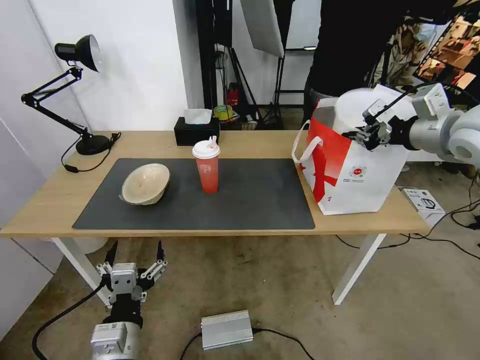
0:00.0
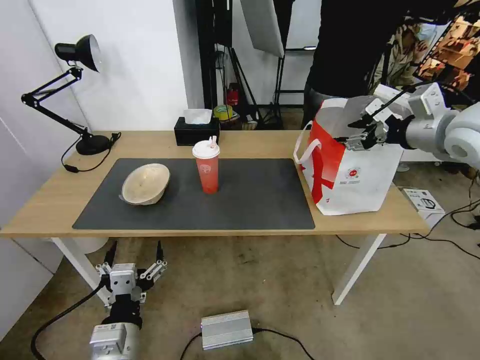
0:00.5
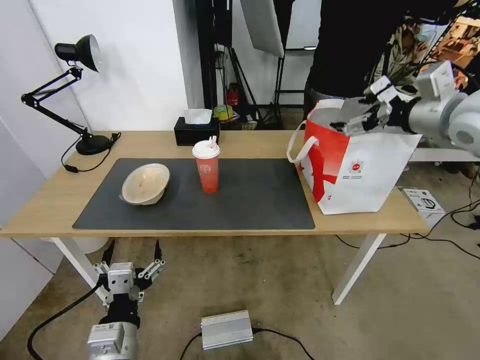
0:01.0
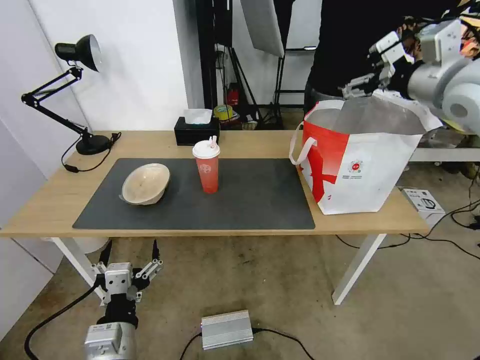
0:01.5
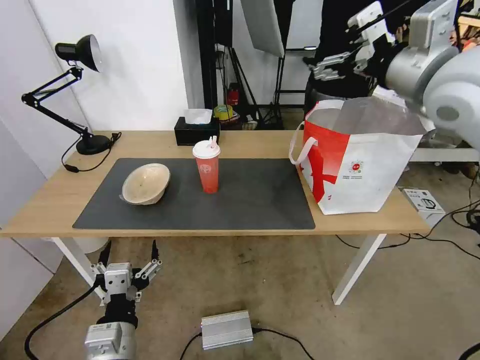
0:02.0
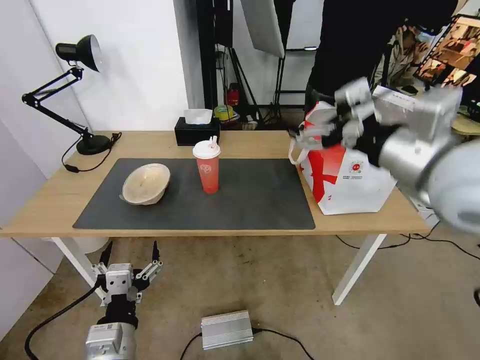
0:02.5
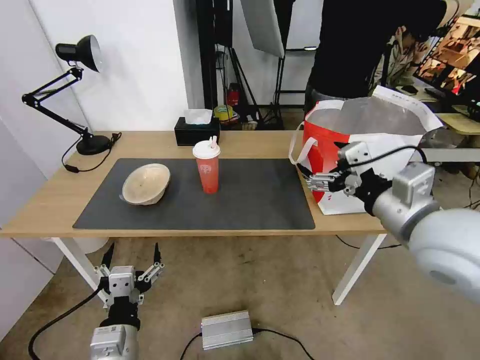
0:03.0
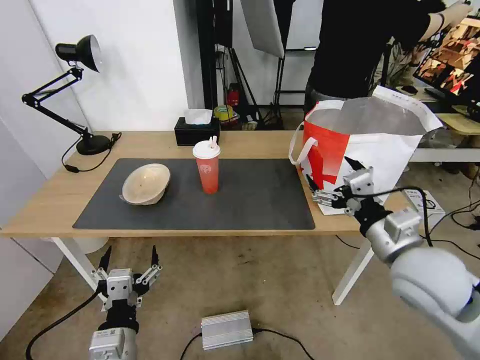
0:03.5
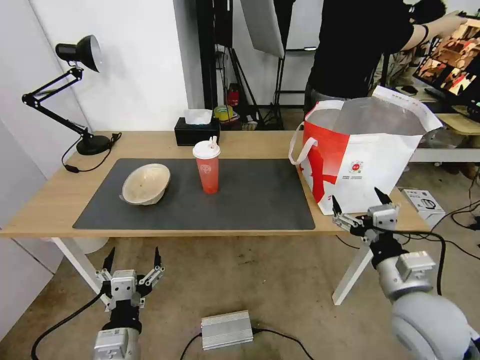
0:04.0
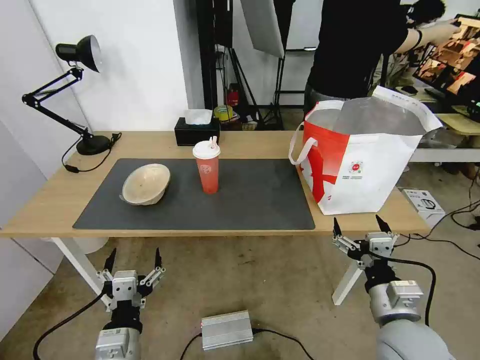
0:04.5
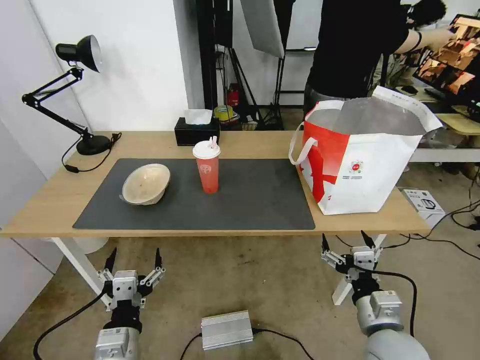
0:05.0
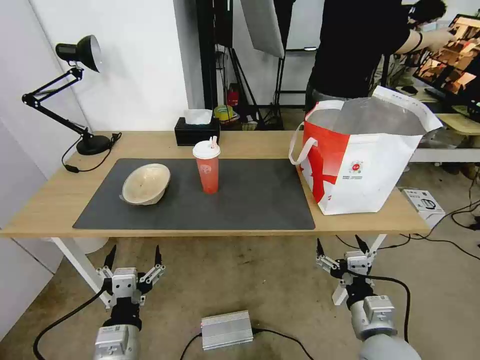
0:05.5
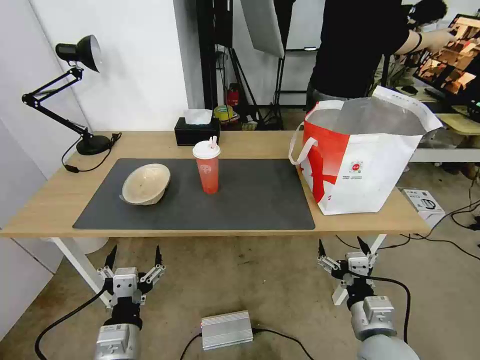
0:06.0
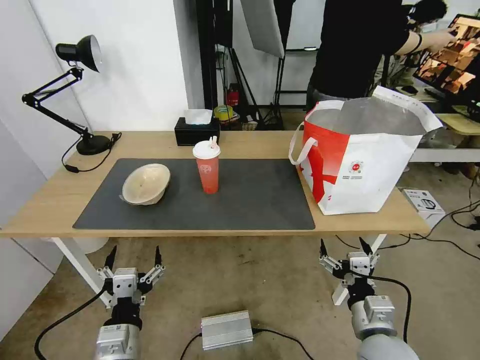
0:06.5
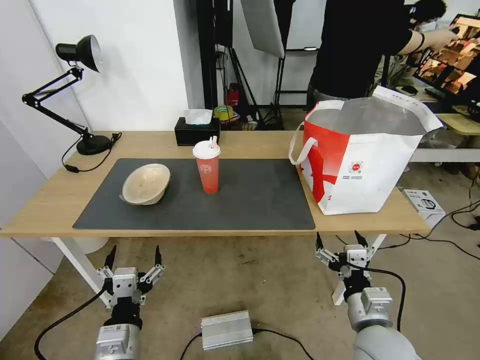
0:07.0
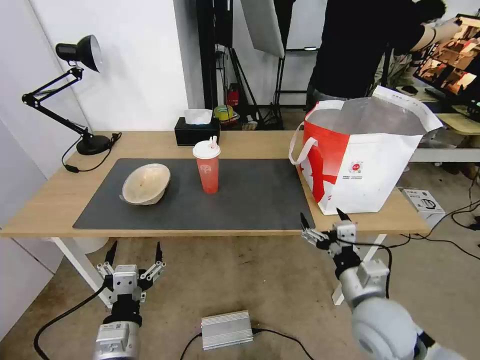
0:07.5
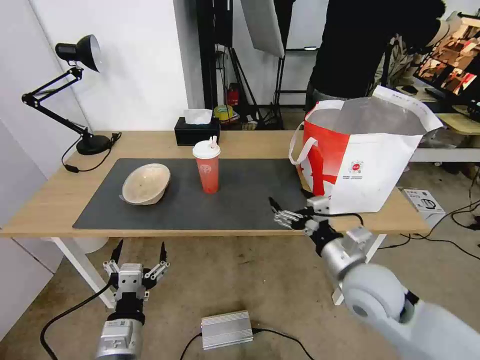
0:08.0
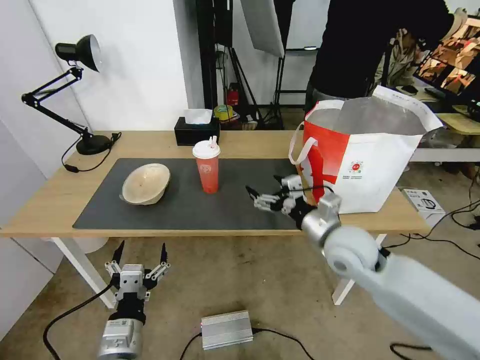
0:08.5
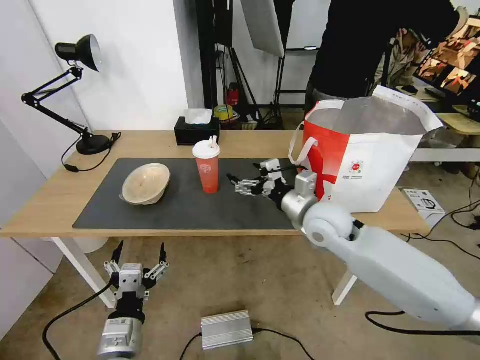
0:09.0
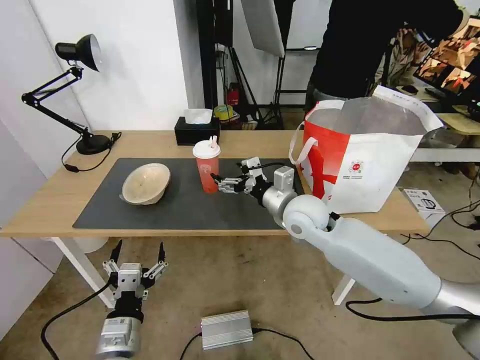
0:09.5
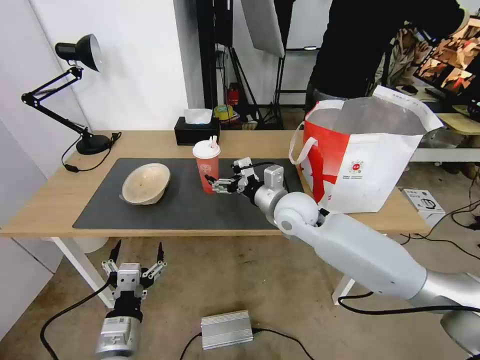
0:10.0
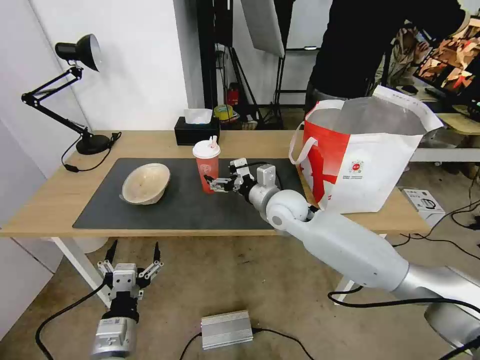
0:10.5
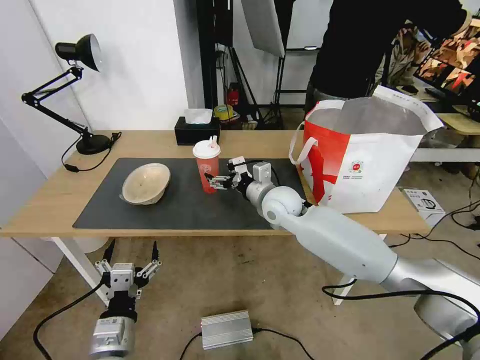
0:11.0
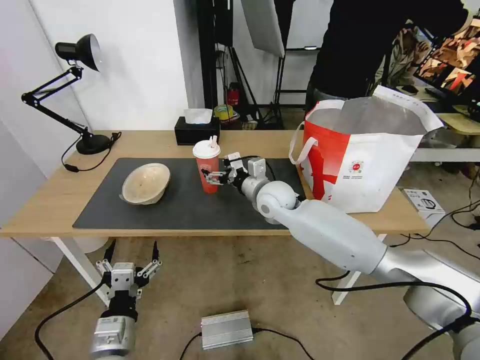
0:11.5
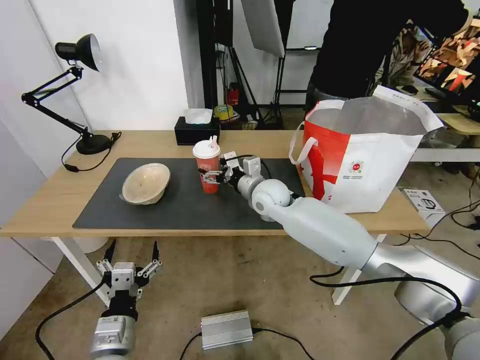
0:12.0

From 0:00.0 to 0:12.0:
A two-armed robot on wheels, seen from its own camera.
Task of the whole recording: Pick up the trash from the table and place it into the takeout bag.
From 0:00.0 to 0:02.0: The right gripper shifts roughly 10 cm to the left and upward, and opens up.
From 0:02.0 to 0:04.0: The right gripper travels downward and backward by approximately 35 cm.
From 0:04.0 to 0:06.0: The right gripper is displaced downward by about 10 cm.
From 0:06.0 to 0:08.0: The right gripper travels forward and upward by roughly 15 cm.
From 0:08.0 to 0:10.0: The right gripper goes approximately 20 cm forward and to the left.
From 0:10.0 to 0:12.0: The right gripper goes about 10 cm forward.

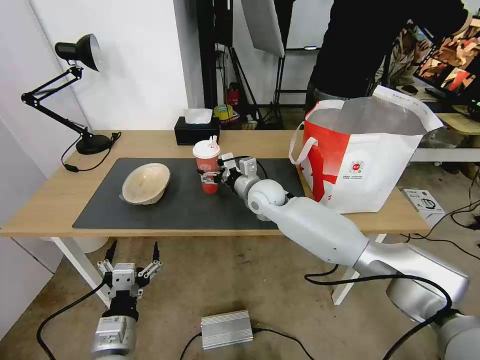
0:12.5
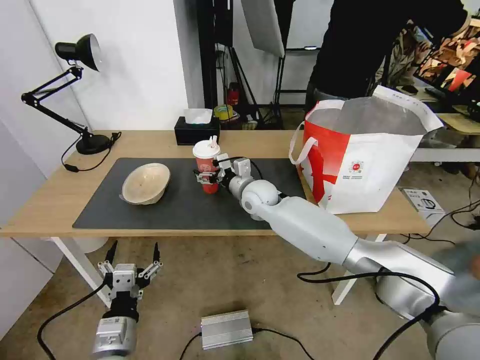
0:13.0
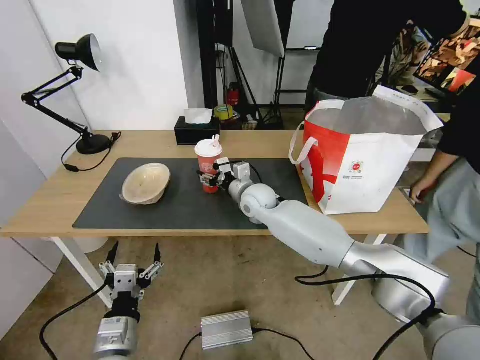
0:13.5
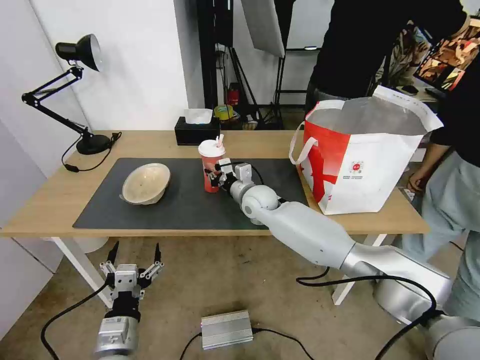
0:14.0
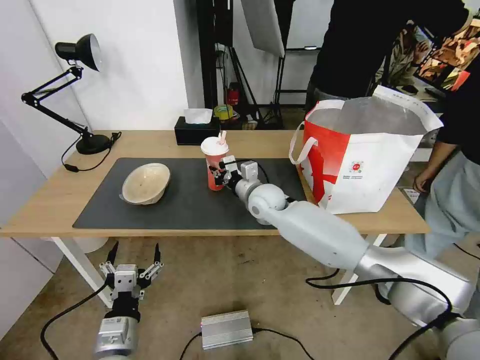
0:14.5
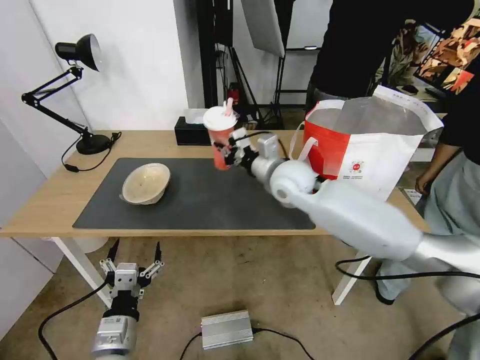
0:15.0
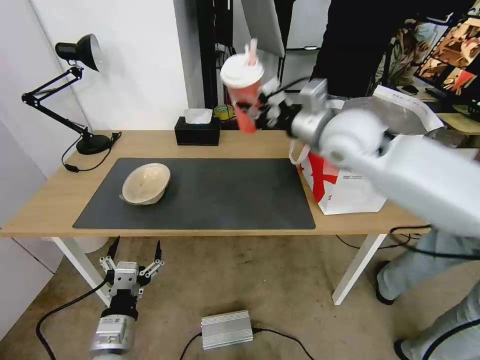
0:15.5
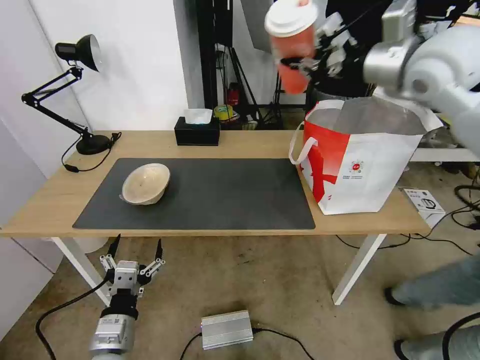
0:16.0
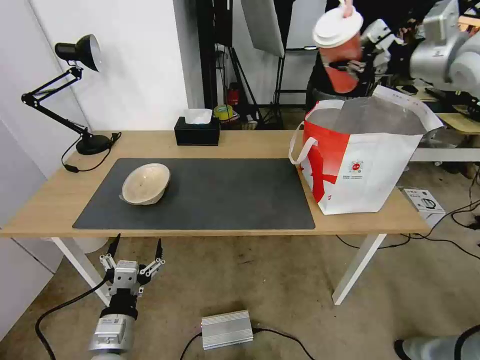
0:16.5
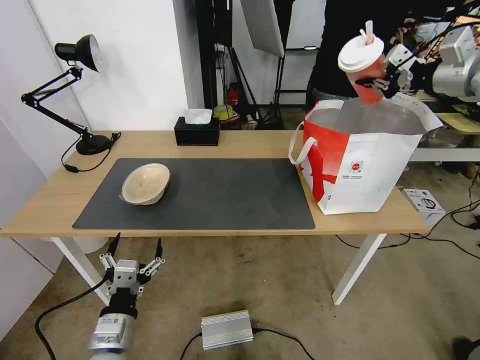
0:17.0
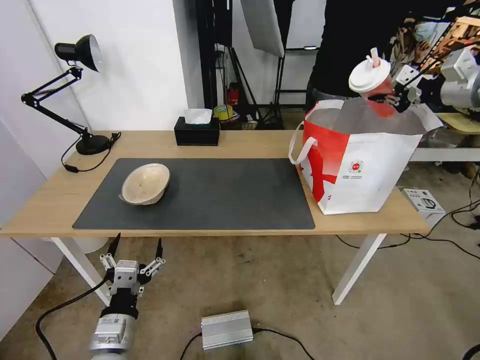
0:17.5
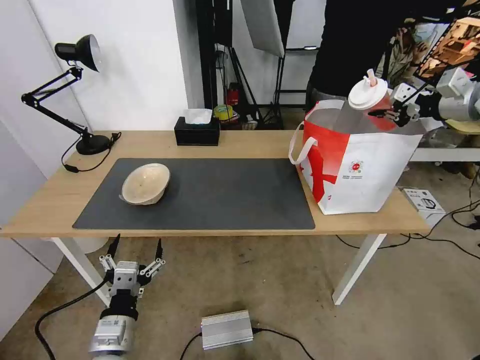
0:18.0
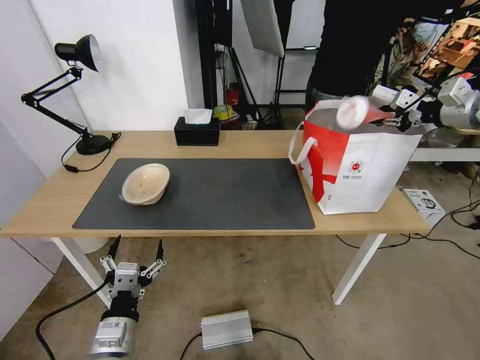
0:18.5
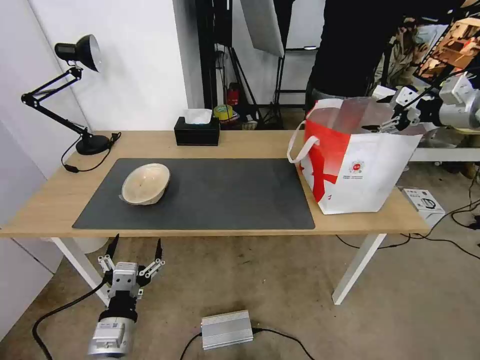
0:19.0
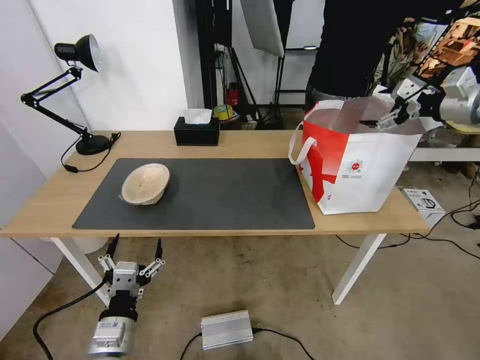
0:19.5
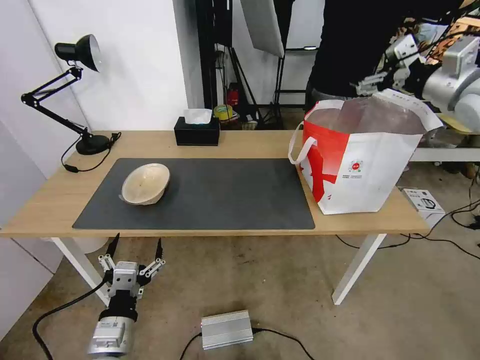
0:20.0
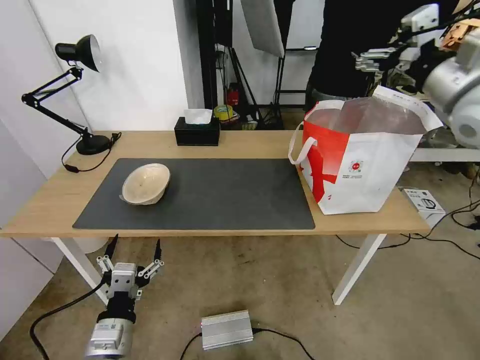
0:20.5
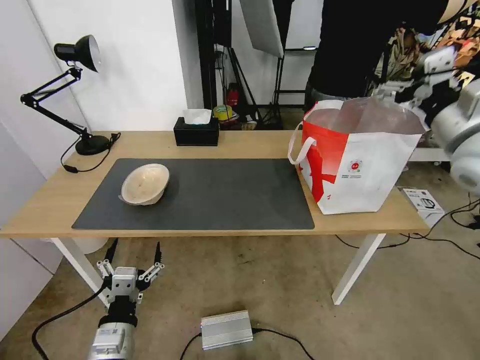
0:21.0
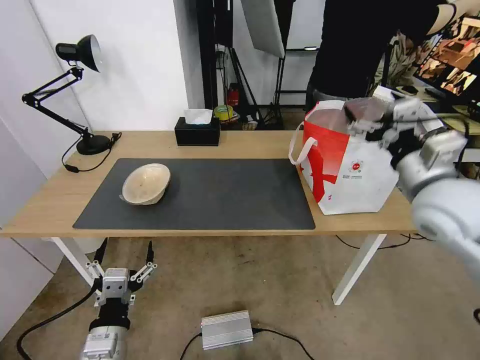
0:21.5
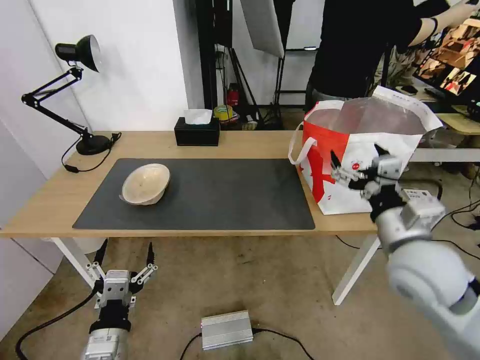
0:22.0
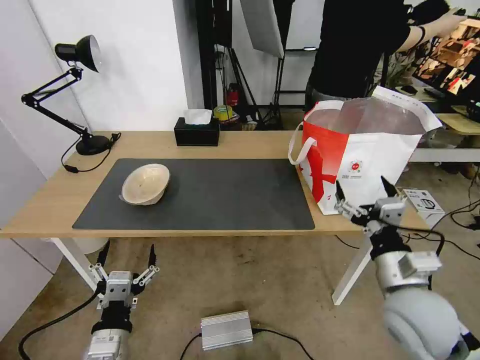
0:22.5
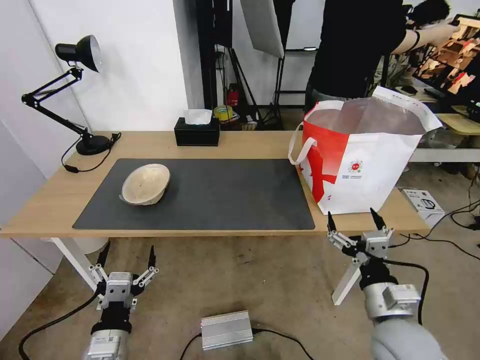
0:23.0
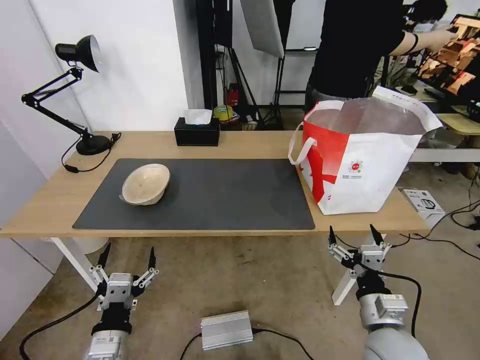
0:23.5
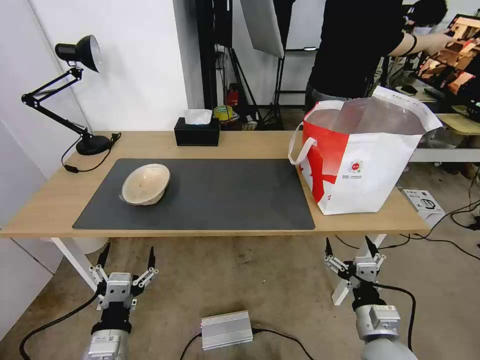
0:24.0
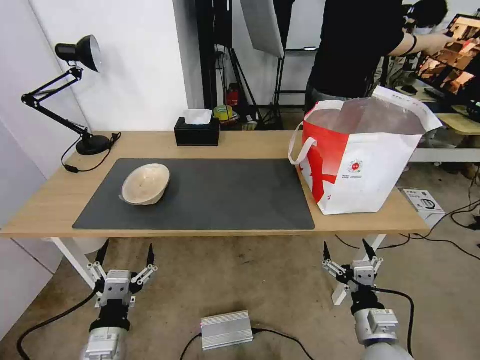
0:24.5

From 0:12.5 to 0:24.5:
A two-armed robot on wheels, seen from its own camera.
Task of the whole recording: Pick up the trash from the table and place it into the takeout bag.
From 0:12.5 to 0:14.5: The right gripper closes up.
From 0:14.5 to 0:16.5: The right gripper heads upward and to the right, covering some 50 cm.
From 0:16.5 to 0:18.5: The right gripper goes about 15 cm to the right and downward.
From 0:18.5 to 0:20.5: The right gripper heads to the left and backward, covering approximately 15 cm, and opens.
From 0:20.5 to 0:22.5: The right gripper heads downward and backward, covering about 35 cm.
From 0:22.5 to 0:24.5: The right gripper goes about 15 cm downward and backward.

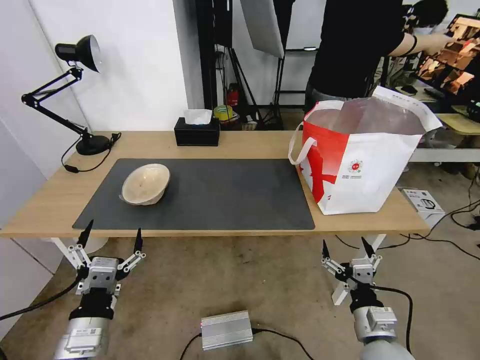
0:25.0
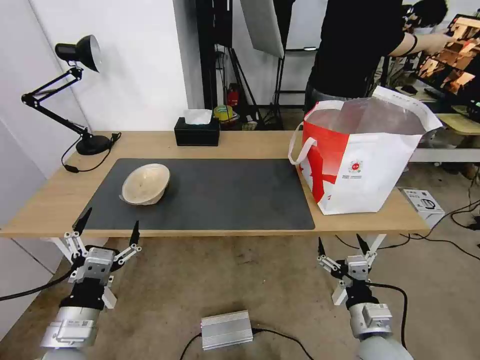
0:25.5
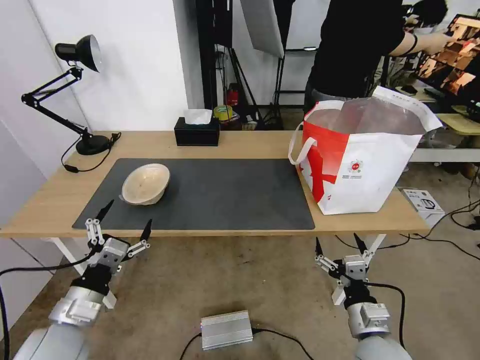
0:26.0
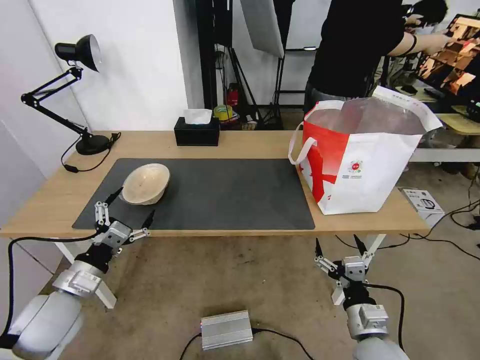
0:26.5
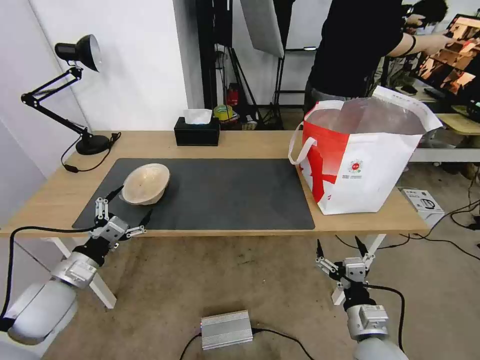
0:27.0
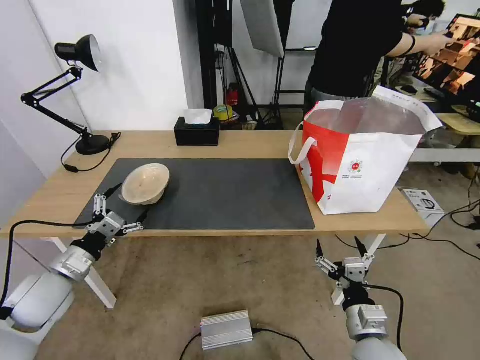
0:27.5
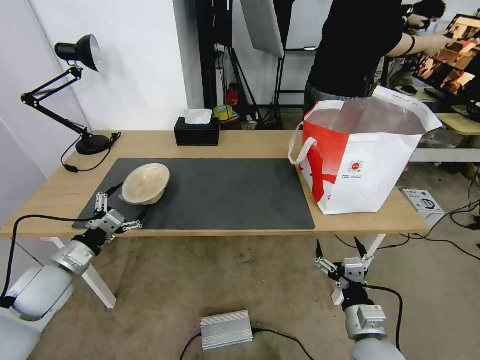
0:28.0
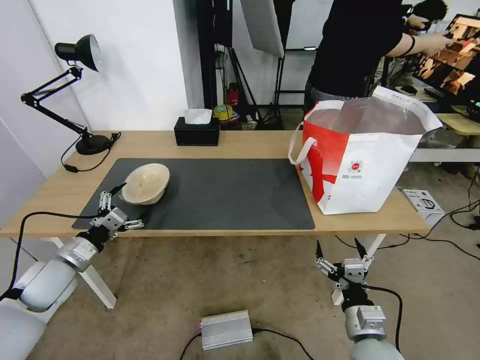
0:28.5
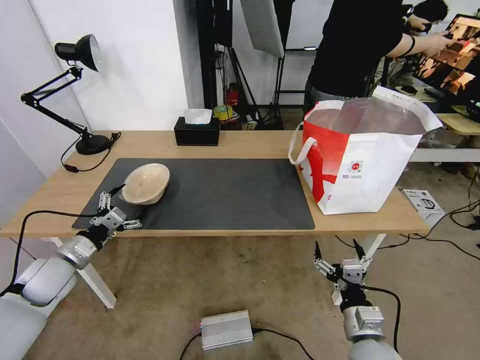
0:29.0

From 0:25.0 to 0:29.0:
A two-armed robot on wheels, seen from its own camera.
Task of the whole recording: Pick up the trash from the table and place it into the takeout bag.
From 0:25.0 to 0:27.0: The left gripper moves forward and to the left, about 15 cm.
From 0:27.0 to 0:29.0: The left gripper shifts roughly 10 cm forward and to the left.
